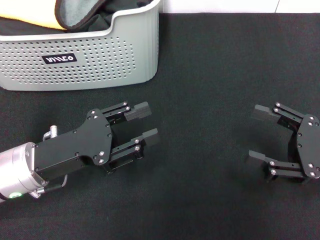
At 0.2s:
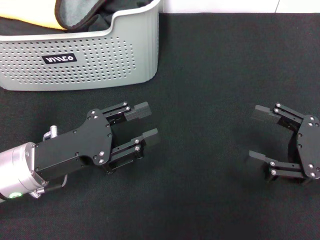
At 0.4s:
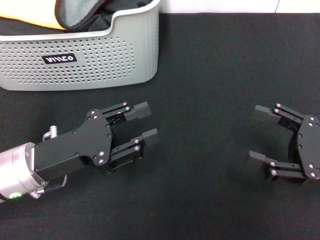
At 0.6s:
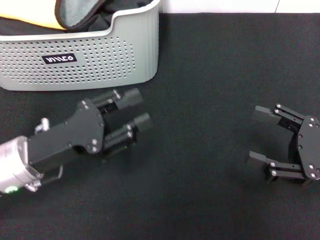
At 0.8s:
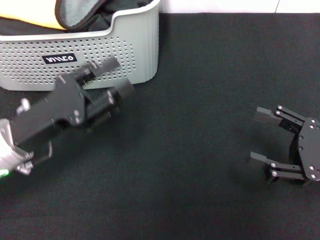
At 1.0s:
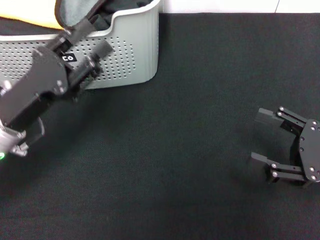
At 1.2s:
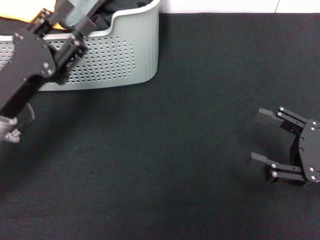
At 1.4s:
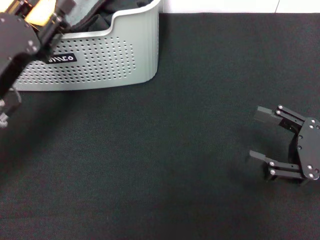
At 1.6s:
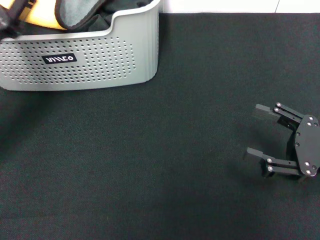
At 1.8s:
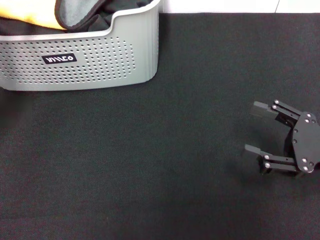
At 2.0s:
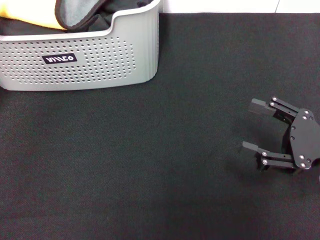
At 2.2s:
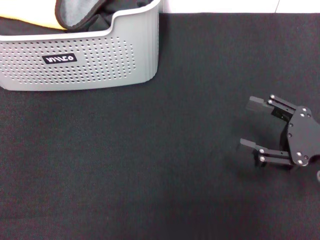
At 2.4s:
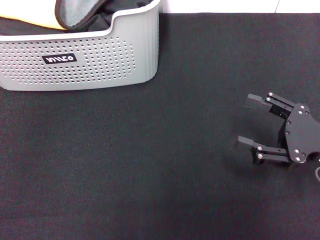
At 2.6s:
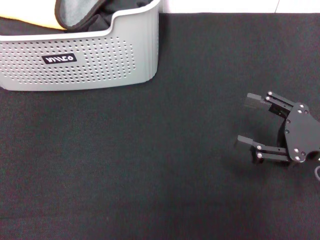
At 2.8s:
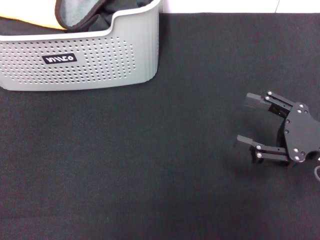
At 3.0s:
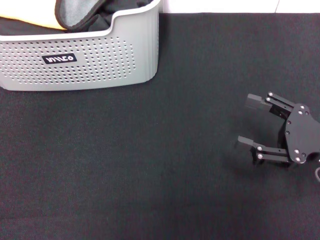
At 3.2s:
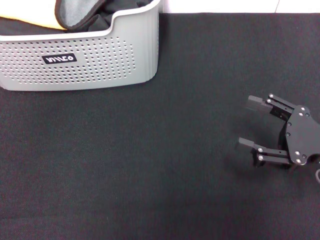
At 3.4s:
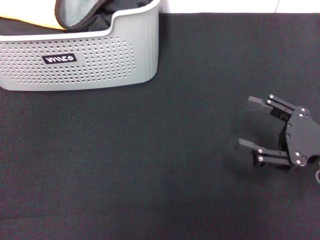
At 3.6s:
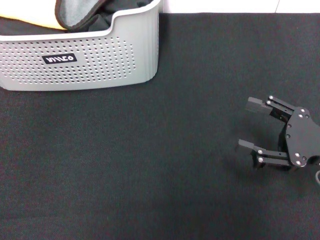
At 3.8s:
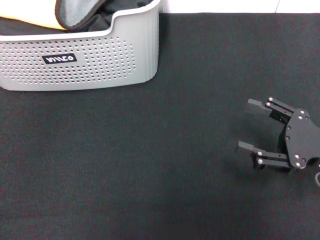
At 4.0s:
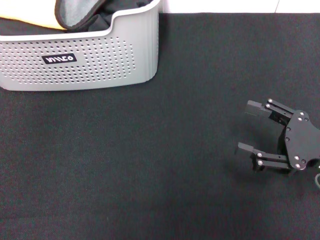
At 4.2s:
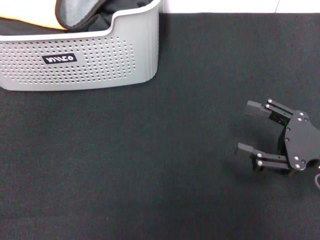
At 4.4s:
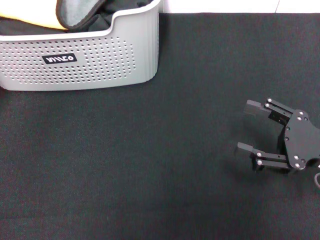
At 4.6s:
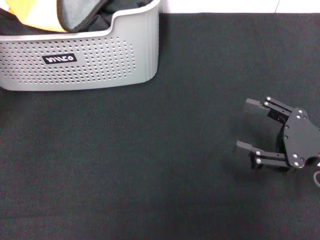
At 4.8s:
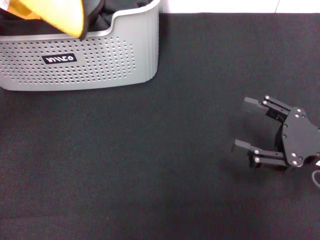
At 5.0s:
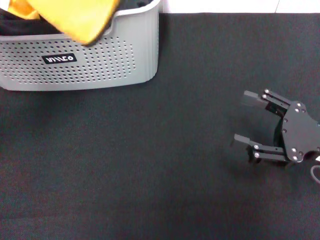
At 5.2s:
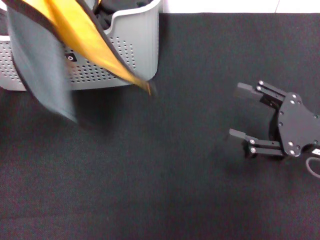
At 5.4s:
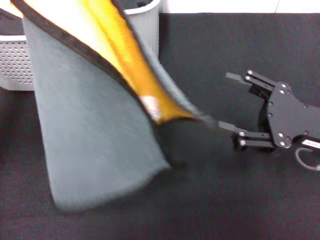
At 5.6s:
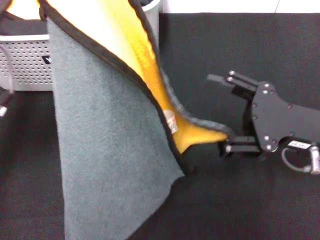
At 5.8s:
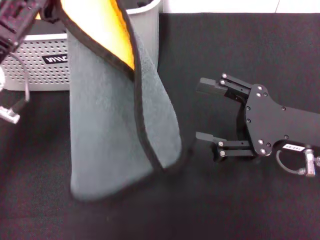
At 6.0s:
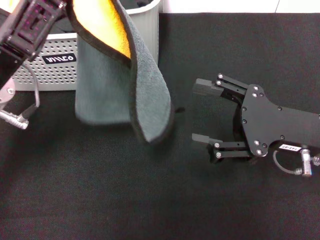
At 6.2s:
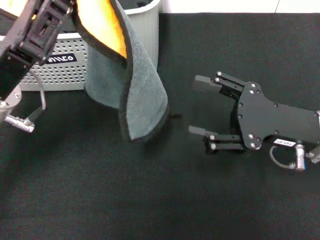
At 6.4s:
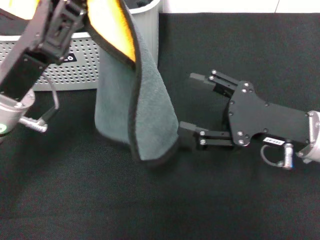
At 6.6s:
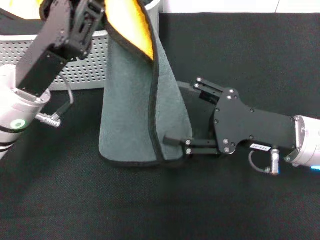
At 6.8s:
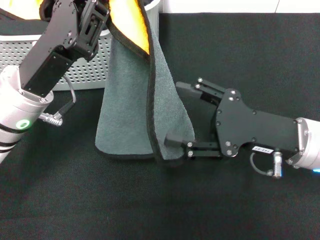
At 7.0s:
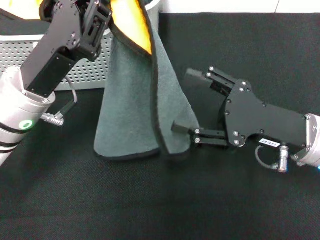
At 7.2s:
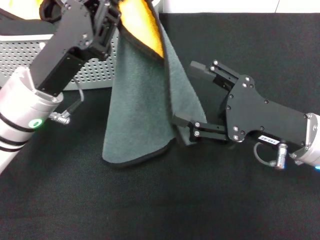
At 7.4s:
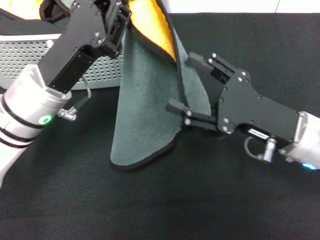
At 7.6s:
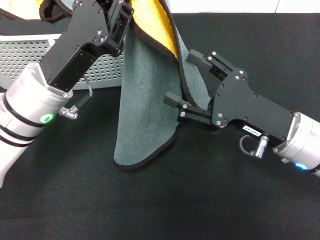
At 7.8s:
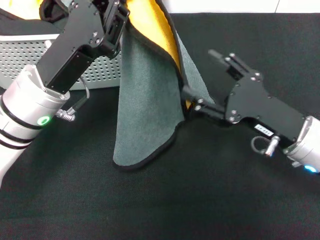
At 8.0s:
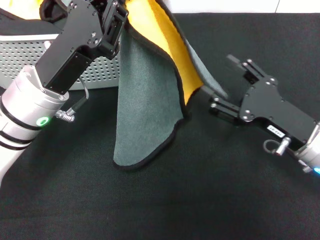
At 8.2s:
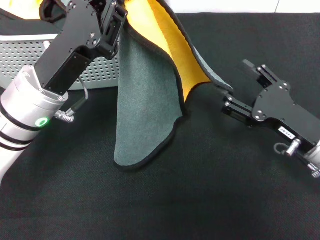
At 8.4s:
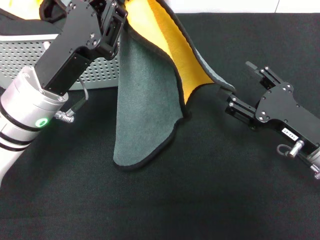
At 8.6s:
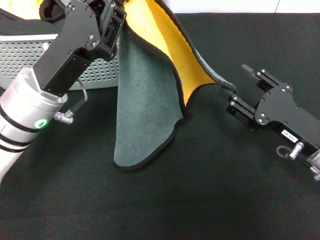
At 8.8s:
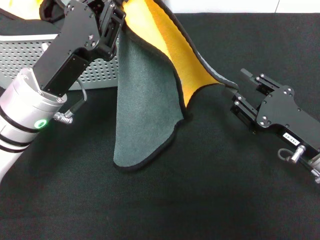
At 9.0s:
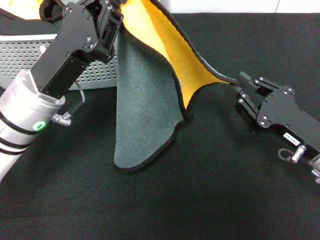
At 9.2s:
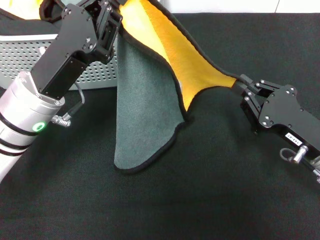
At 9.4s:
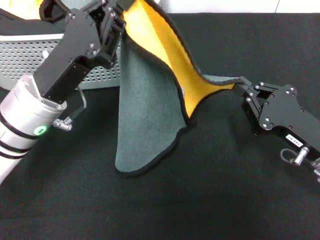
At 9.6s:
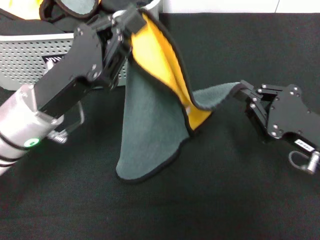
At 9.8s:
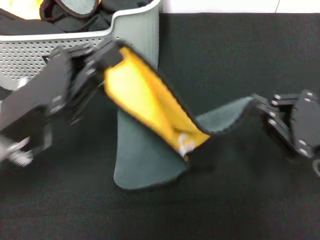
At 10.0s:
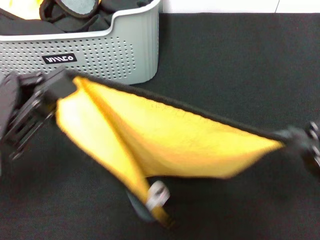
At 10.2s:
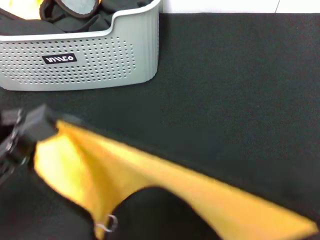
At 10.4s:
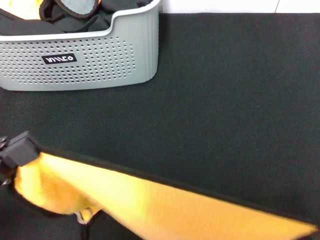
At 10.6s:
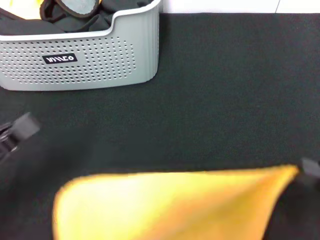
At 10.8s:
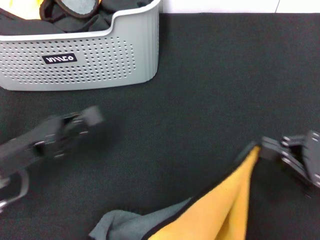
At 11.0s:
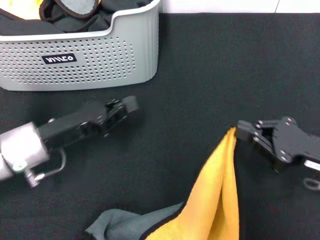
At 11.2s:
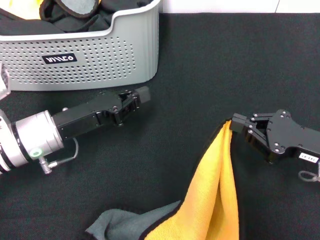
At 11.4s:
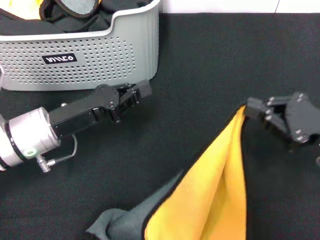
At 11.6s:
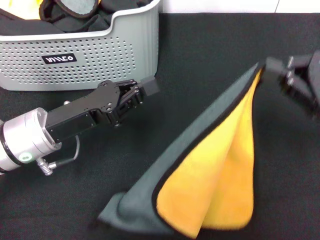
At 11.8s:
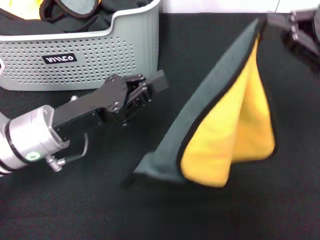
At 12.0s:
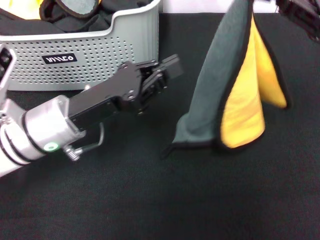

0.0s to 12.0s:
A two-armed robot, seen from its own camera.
Task of the whole recording: pick up the towel from the storage box and lay it flat on the black tablecloth.
Step, 0.0s to 4.4s: Pick up a towel with the left gripper.
Step, 4.6s to 9.2s: Spread the towel flat with the left gripper.
0.0s to 1.6s: The left gripper moves to the left and forward, approximately 10 cm.
1.6s to 3.0s: The left gripper is displaced to the left by approximately 10 cm.
4.4s to 6.0s: The right gripper moves to the left, some 5 cm; the left gripper is displaced to the right by some 15 cm.
6.0s to 7.6s: The left gripper shifts by roughly 5 cm.
7.6s to 9.0s: The right gripper is displaced to the right by approximately 5 cm, and closes up.
9.0s to 10.4s: The right gripper shifts approximately 15 cm backward, to the right and upward, and closes up. Meanwhile the left gripper travels backward and to the left by some 20 cm.
10.4s to 12.0s: The right gripper moves forward and upward, some 20 cm; the left gripper travels forward and to the right by some 20 cm.

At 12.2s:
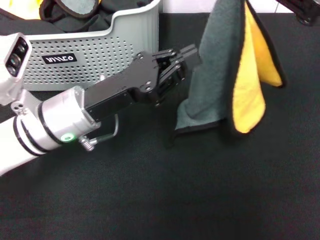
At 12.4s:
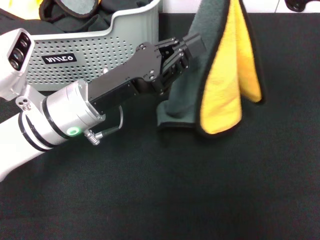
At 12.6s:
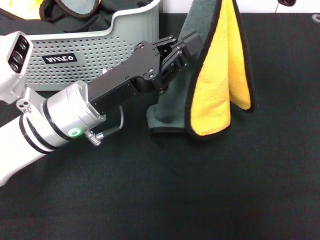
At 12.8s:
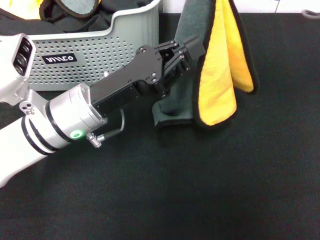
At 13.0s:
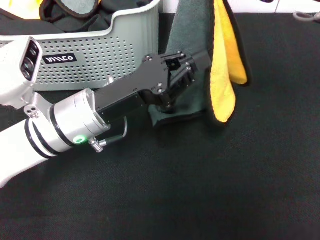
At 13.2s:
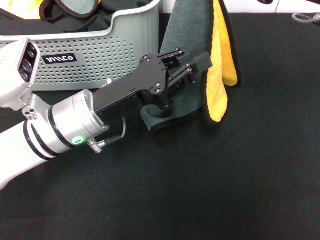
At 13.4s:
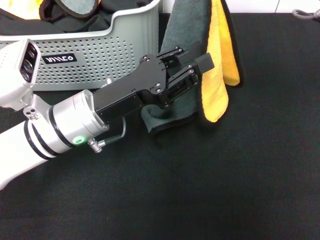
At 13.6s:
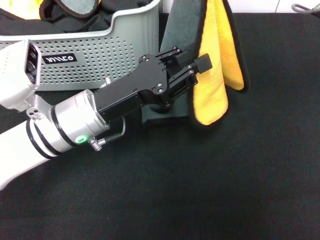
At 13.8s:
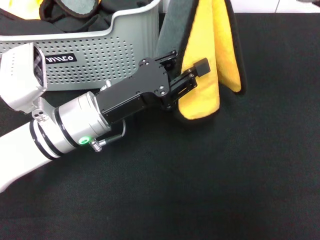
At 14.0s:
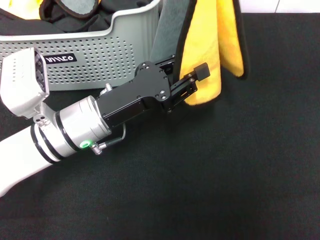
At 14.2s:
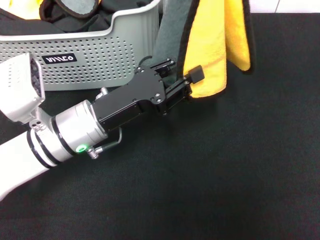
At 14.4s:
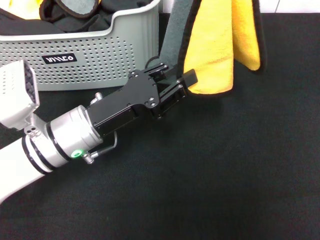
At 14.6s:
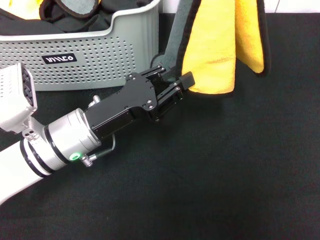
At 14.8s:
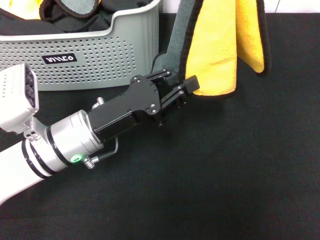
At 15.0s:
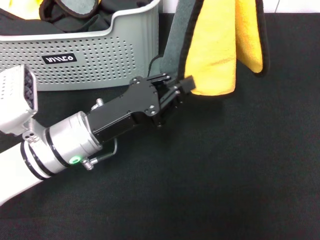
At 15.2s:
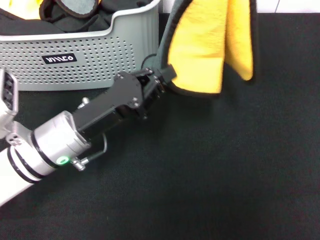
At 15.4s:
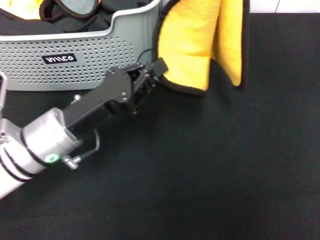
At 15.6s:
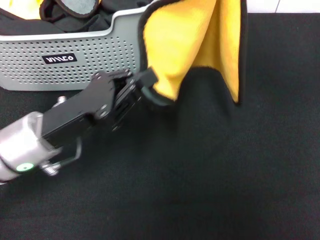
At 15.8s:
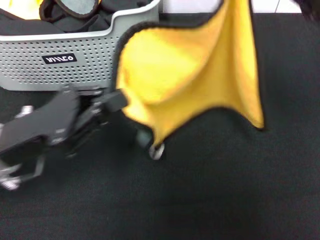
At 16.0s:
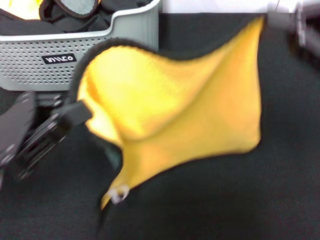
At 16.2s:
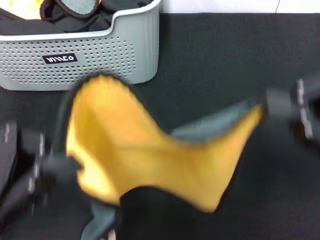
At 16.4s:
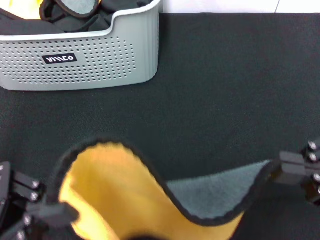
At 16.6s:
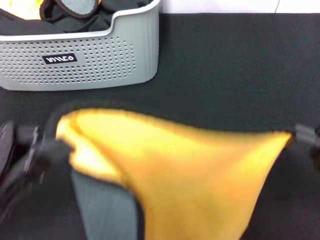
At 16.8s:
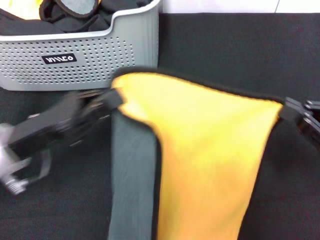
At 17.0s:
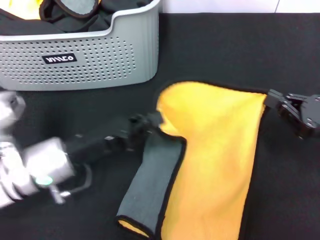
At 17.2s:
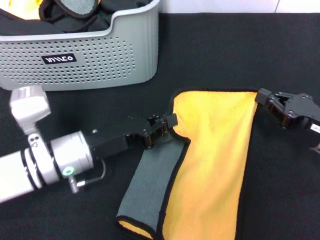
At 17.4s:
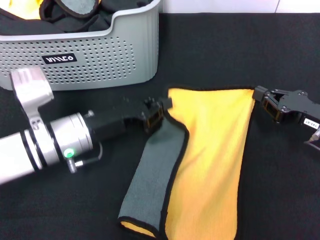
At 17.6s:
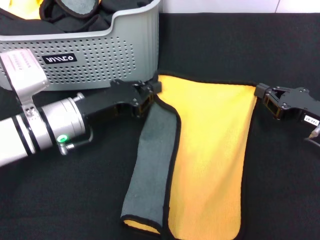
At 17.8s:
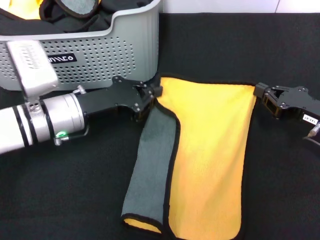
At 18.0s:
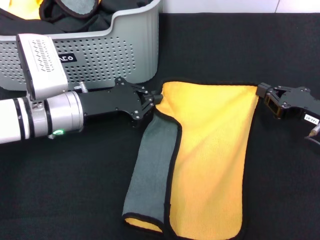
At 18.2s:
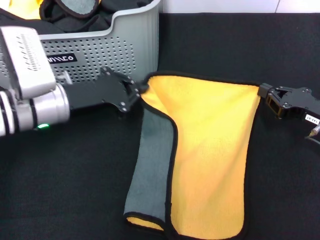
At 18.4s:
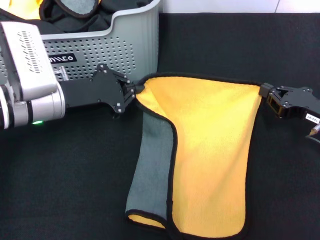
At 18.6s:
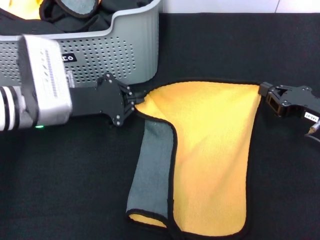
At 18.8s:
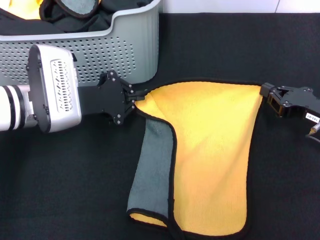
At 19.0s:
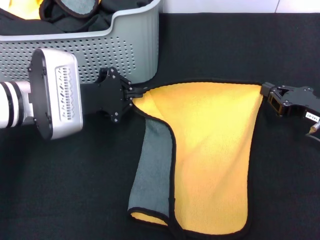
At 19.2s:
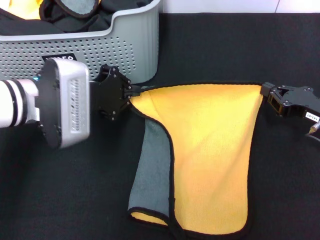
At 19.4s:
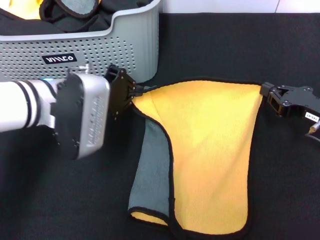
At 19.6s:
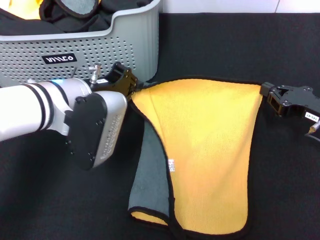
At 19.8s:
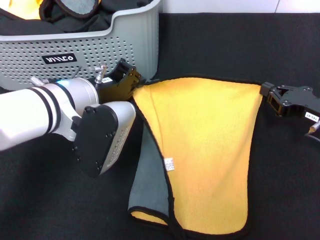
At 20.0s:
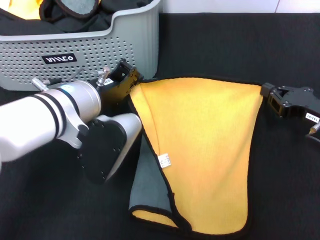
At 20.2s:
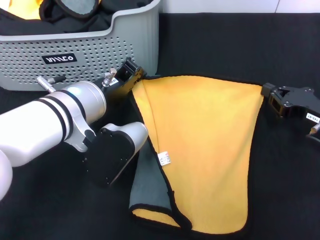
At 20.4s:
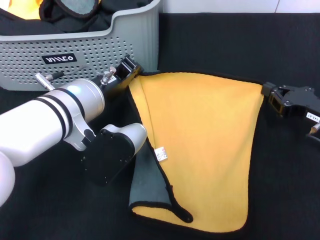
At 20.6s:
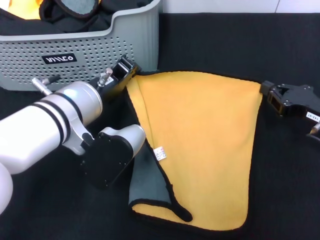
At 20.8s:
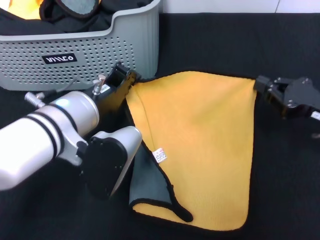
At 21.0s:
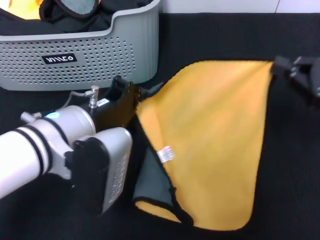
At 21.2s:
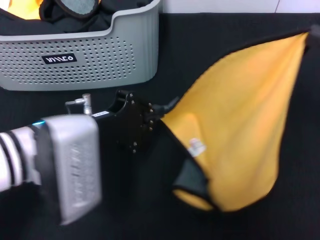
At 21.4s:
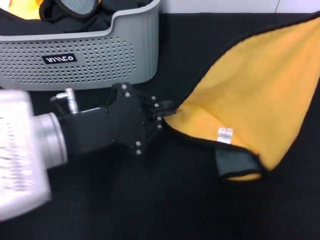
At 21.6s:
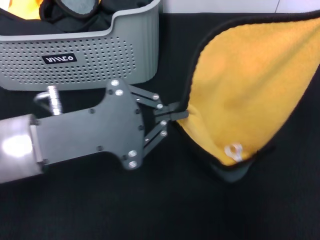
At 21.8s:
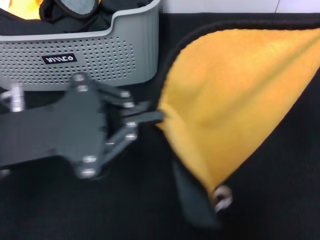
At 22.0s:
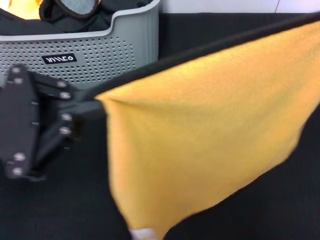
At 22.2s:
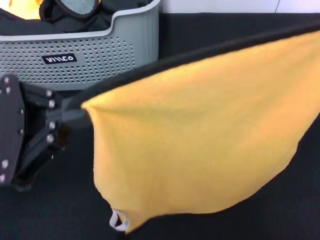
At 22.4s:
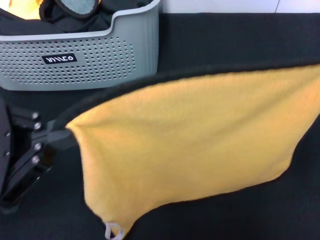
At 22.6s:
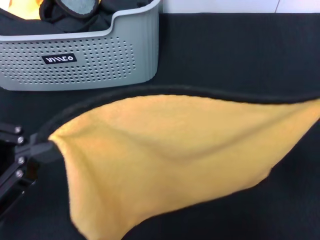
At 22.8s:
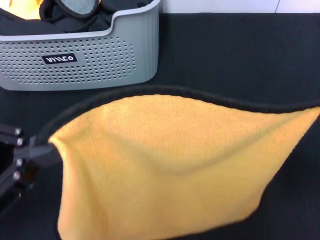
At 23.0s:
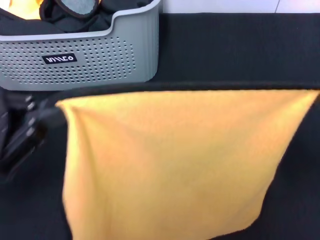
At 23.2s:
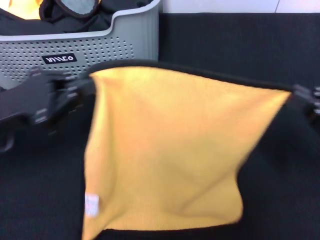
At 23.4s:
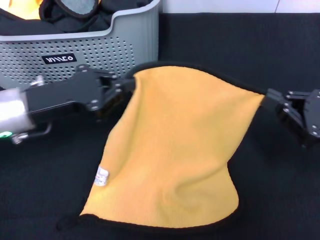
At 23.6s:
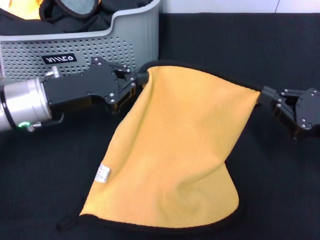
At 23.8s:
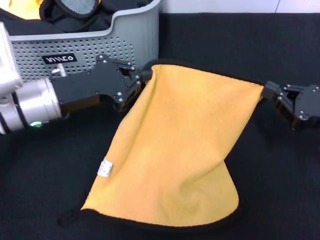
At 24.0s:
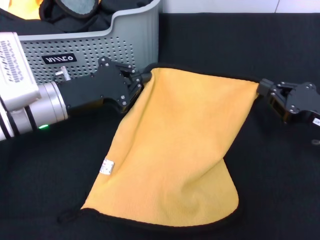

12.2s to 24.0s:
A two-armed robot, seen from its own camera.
Task of the whole recording: pick up the towel from the storage box and lay it flat on the black tablecloth.
12.2s to 13.6s: The left gripper opens its fingers.
15.2s to 16.6s: The left gripper is displaced backward, to the left and upward by some 15 cm, while the right gripper shifts approximately 20 cm backward and downward.
16.6s to 18.2s: The right gripper travels forward and downward by about 15 cm, while the left gripper is displaced forward by about 15 cm.
18.2s to 19.6s: The left gripper heads to the right, covering about 5 cm.
19.6s to 21.0s: The left gripper goes about 5 cm backward; the right gripper goes some 5 cm upward.
21.0s to 22.6s: The right gripper moves backward and upward, some 10 cm. The left gripper moves to the left and backward, some 15 cm.
22.6s to 24.0s: The right gripper goes some 15 cm downward and forward. The left gripper is displaced forward, downward and to the right by roughly 20 cm.
